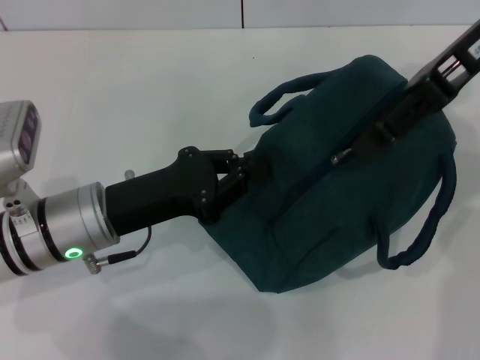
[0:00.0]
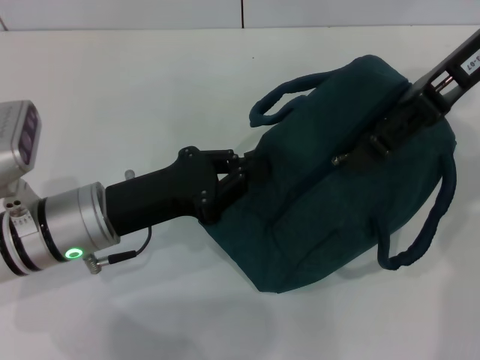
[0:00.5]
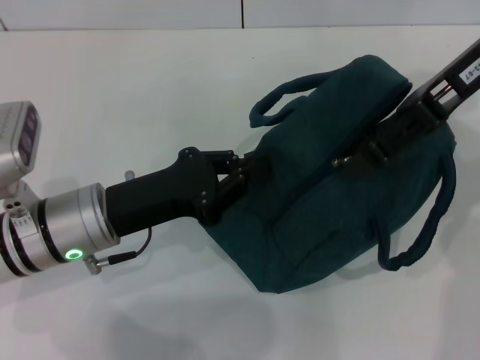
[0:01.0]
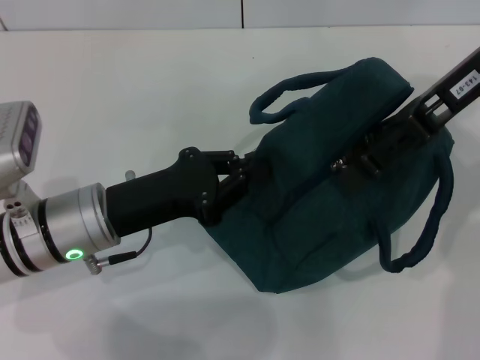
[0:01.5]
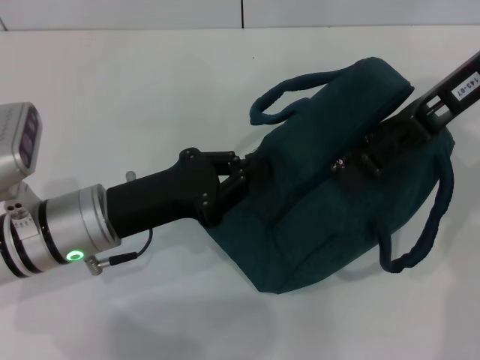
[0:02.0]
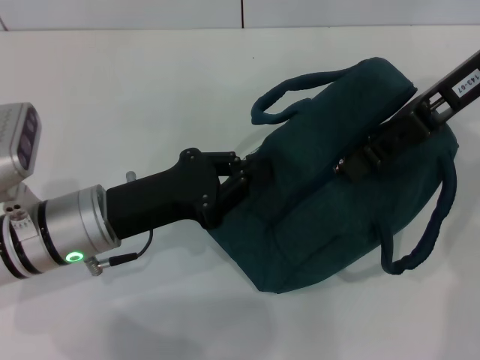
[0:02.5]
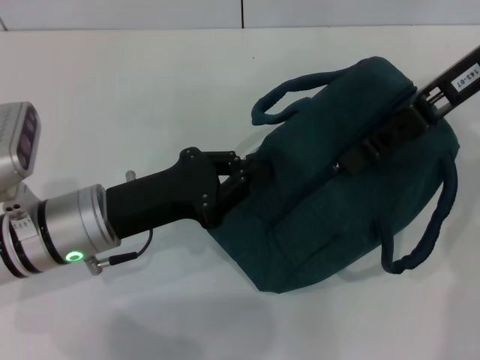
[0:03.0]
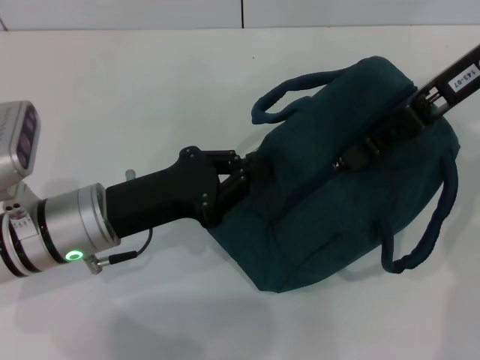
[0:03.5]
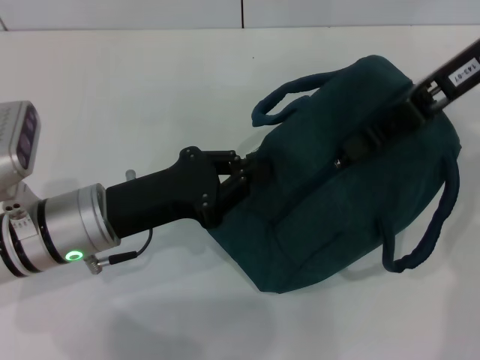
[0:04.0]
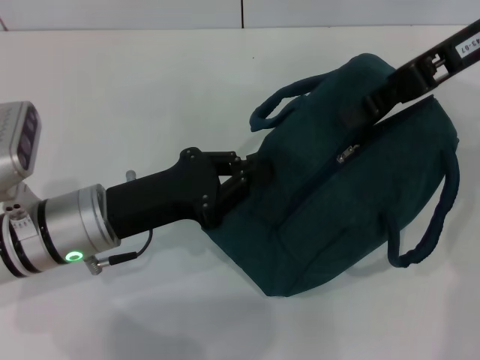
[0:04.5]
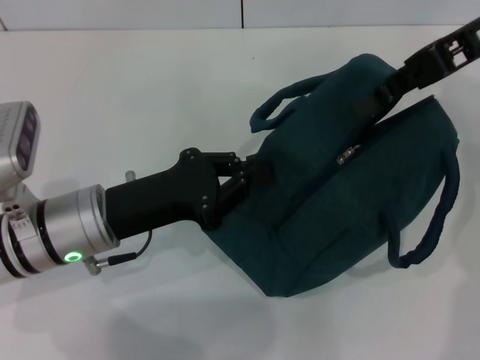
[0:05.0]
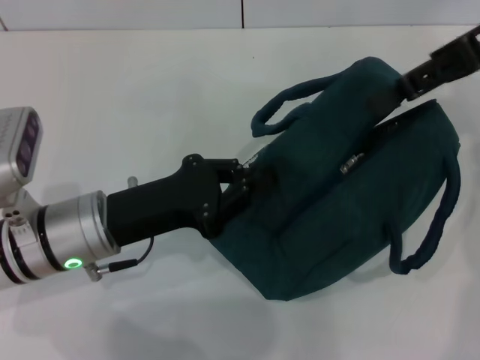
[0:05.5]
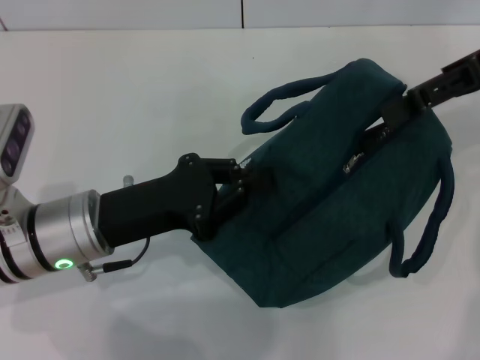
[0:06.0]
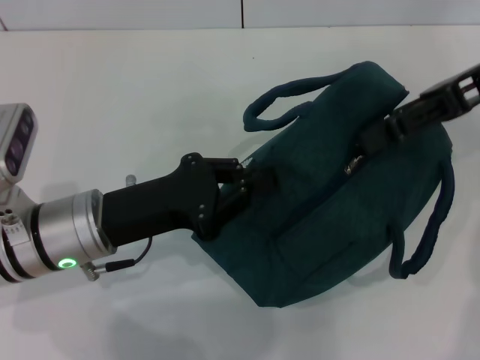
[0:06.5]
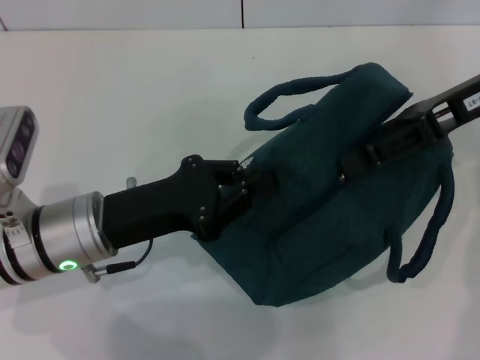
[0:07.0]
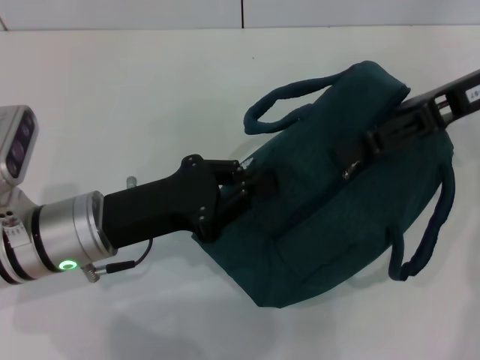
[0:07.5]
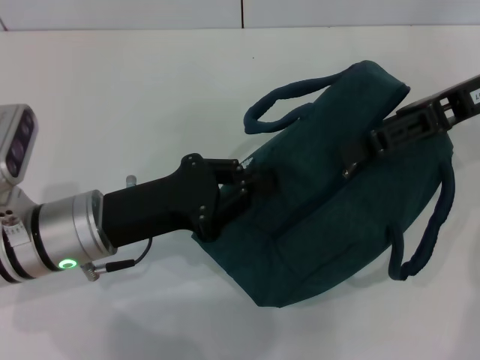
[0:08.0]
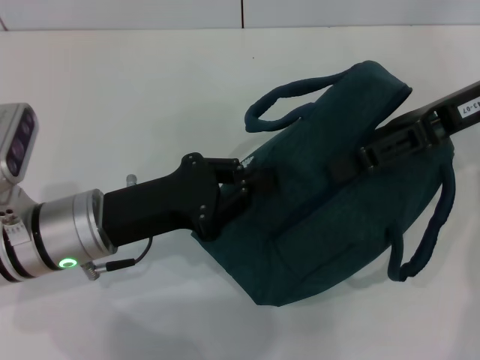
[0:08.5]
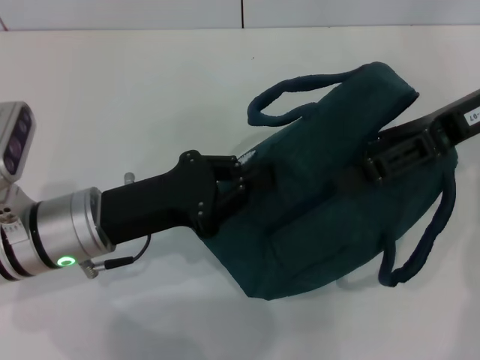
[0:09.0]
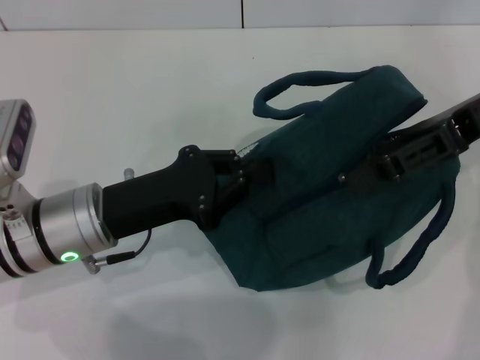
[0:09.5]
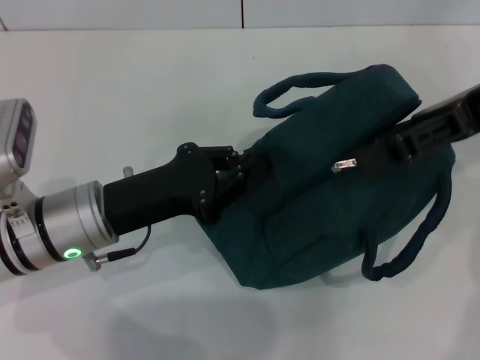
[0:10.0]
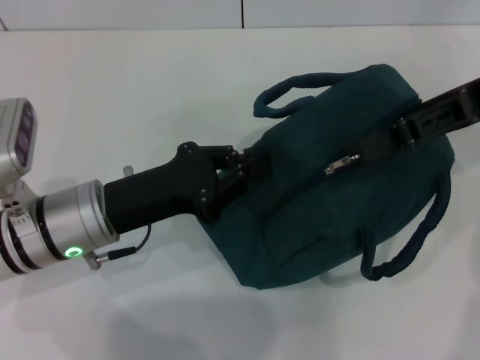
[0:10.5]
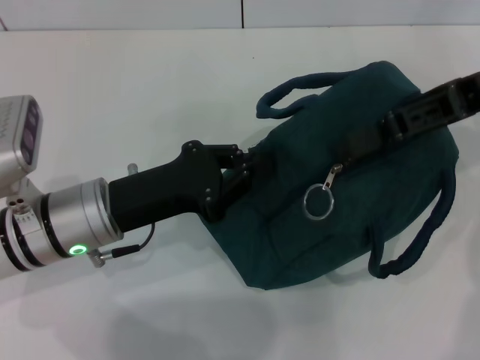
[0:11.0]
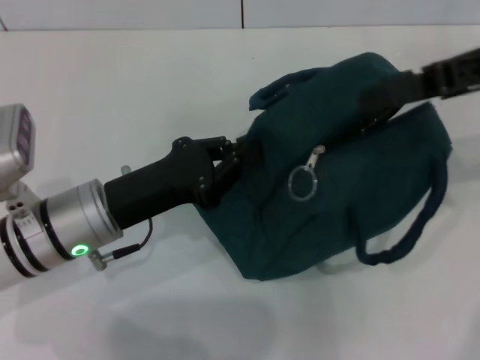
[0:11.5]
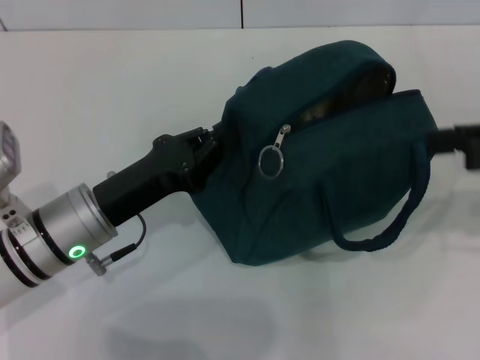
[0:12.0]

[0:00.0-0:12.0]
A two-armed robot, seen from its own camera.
0:00.0 to 0:02.0: The grippers stay close to where they were, moving slightly.
0:02.0 to 0:04.0: The right gripper closes up.
0:04.0 to 0:06.0: The right gripper moves to the right, some 5 cm, and opens.
0:06.0 to 0:08.0: The right gripper shifts by some 5 cm.
0:08.0 to 0:10.0: The grippers make only small movements.
0:10.0 to 0:12.0: The right gripper shifts about 10 cm to the right and backward.

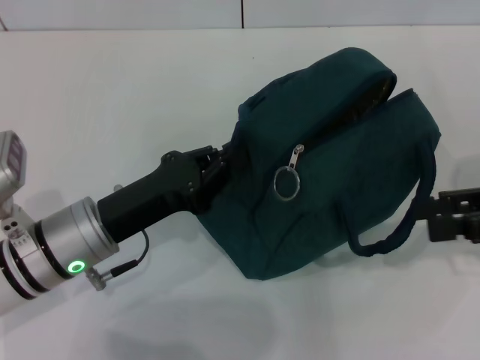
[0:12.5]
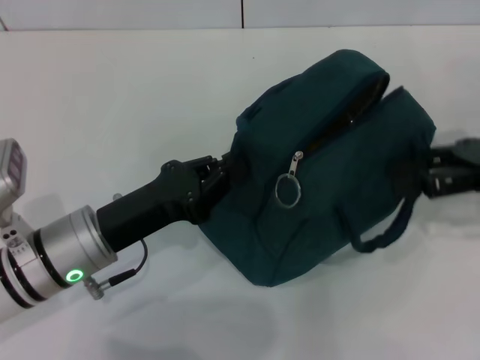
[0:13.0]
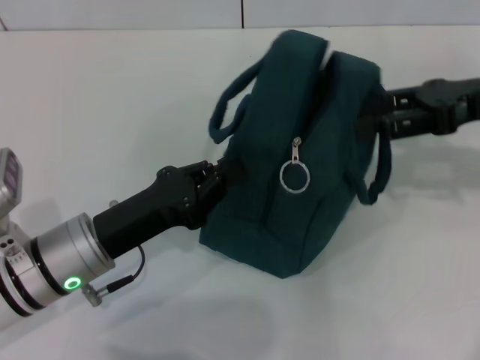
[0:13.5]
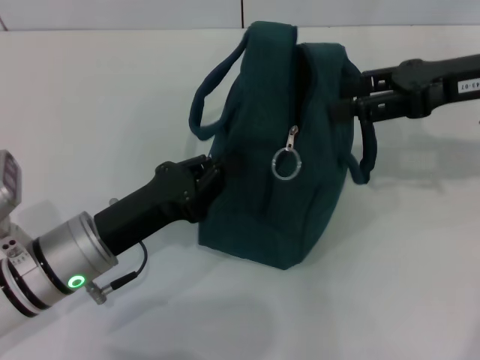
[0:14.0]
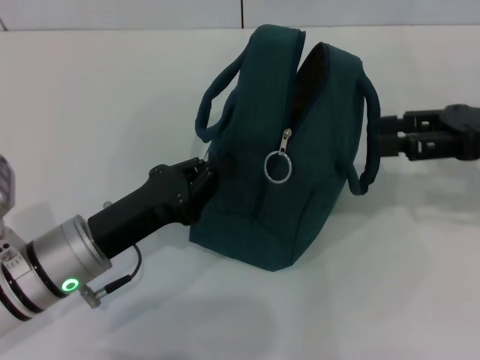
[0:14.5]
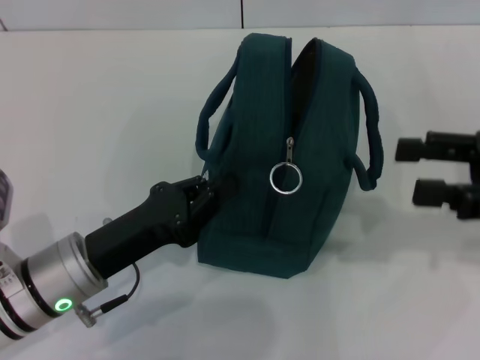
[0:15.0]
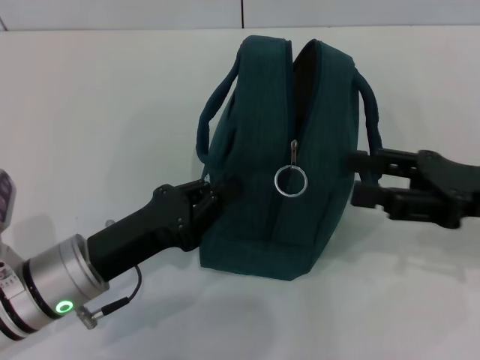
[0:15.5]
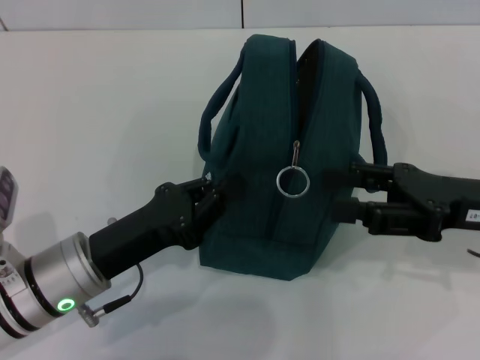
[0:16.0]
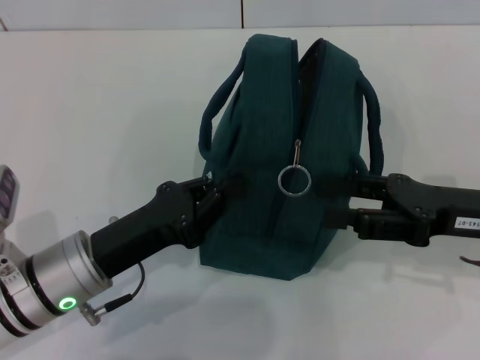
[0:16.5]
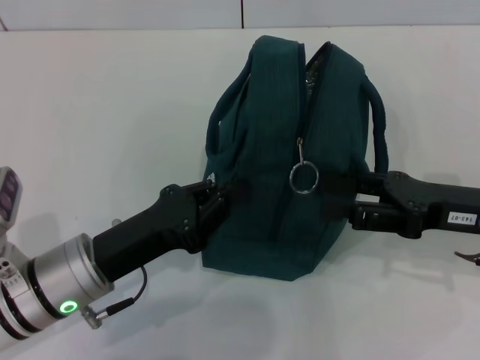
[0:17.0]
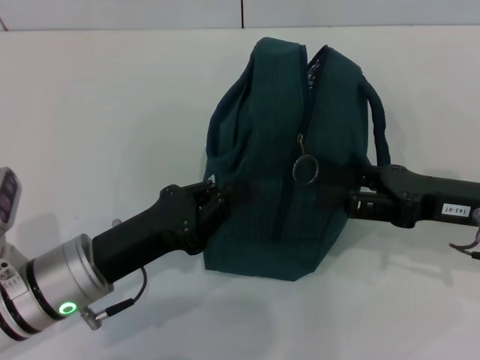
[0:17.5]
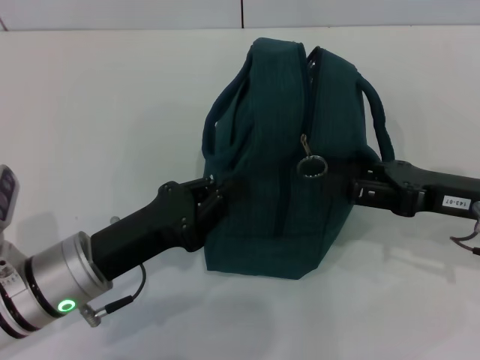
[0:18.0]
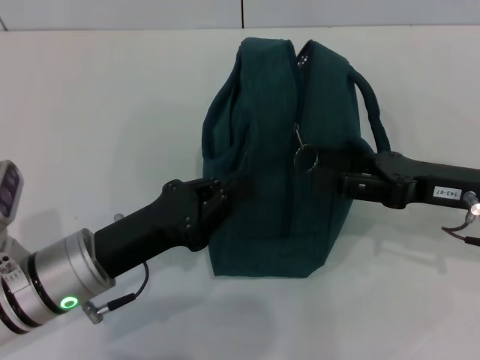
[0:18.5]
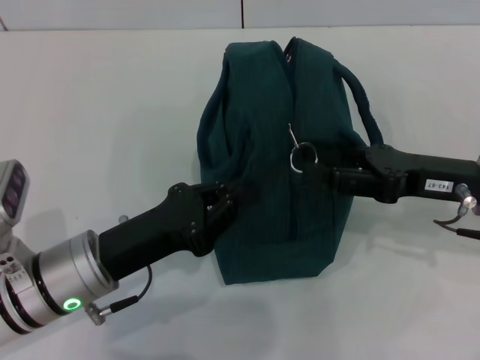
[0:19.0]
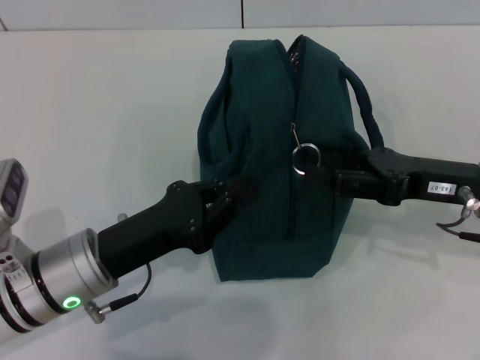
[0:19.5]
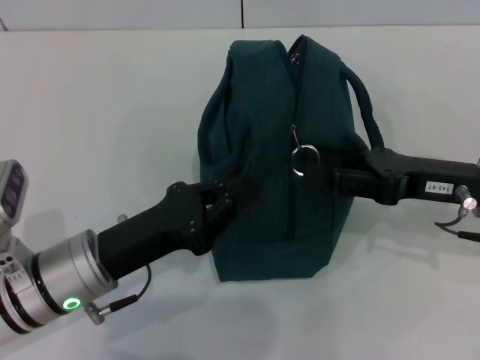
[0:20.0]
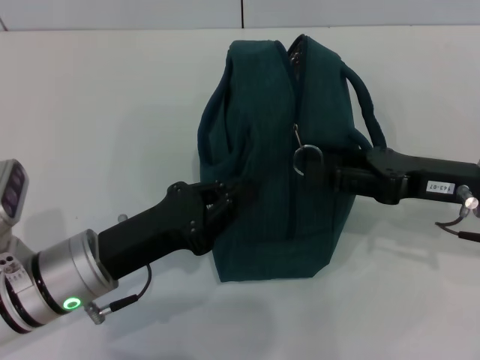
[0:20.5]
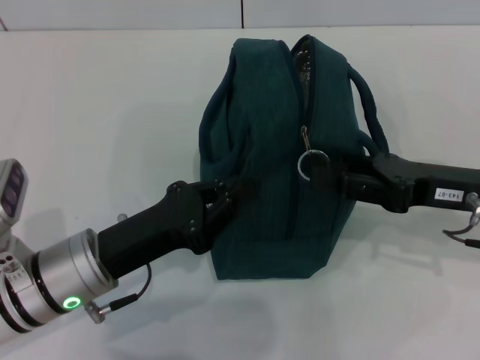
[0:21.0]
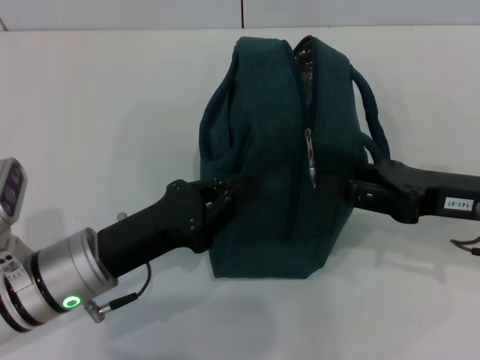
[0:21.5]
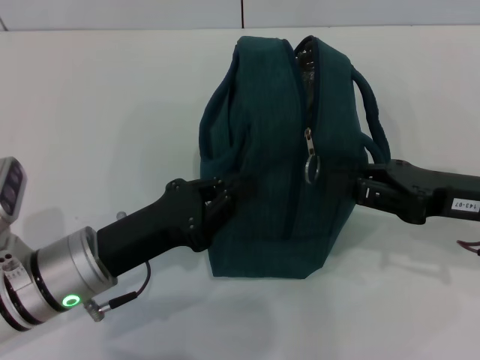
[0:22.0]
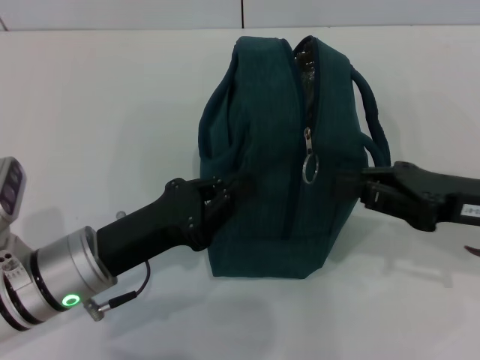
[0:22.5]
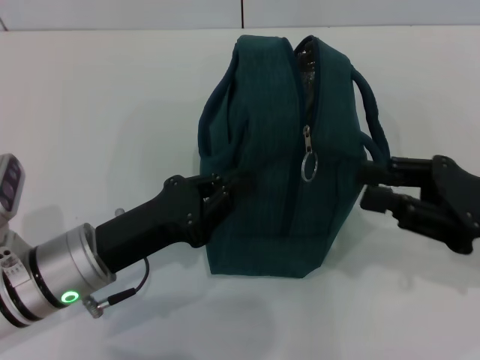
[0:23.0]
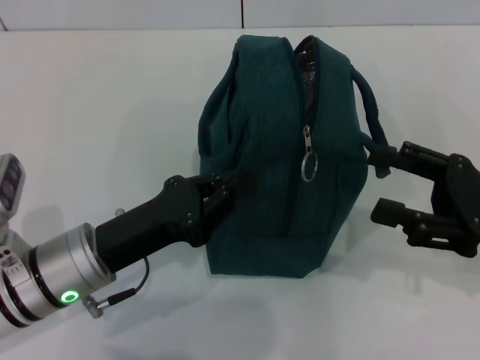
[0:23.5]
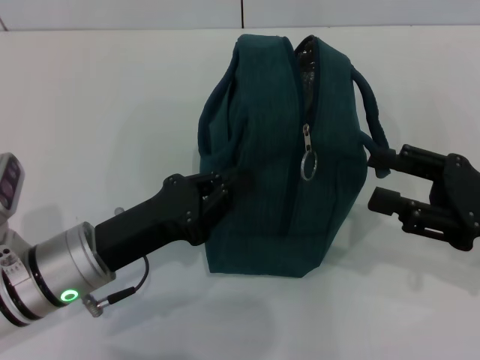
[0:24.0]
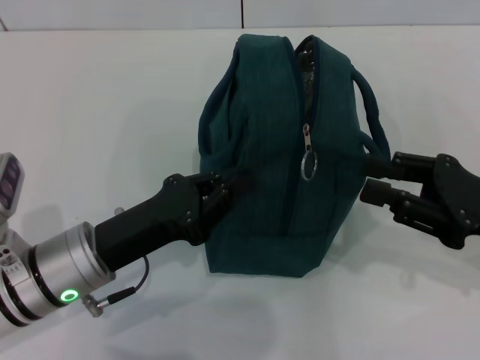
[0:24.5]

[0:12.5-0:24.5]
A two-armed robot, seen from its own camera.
0:14.5 to 0:16.5: The right gripper is displaced downward and backward by roughly 10 cm.
0:16.5 to 0:18.5: The grippers make only small movements.
0:18.5 to 0:20.5: Both grippers stay about where they are.
0:20.5 to 0:22.5: The right gripper closes its fingers.
0:22.5 to 0:24.5: The right gripper opens, then closes once more.

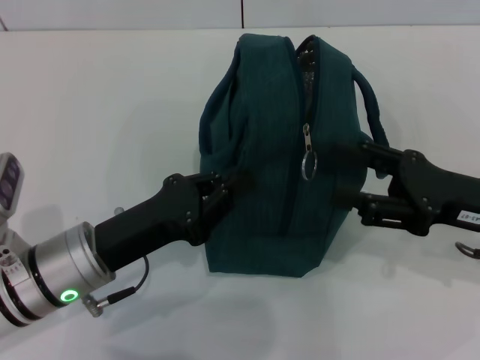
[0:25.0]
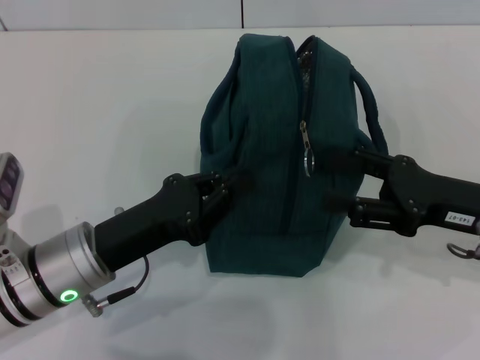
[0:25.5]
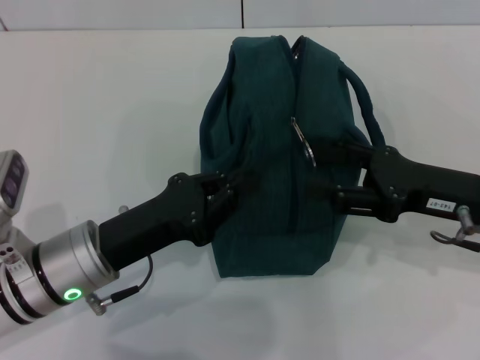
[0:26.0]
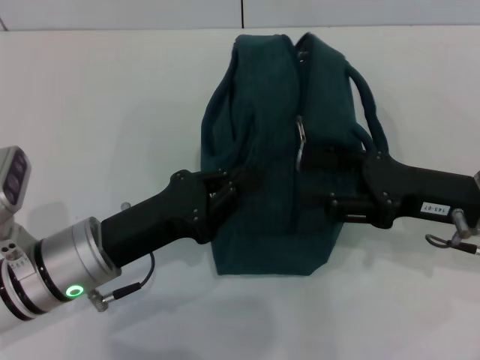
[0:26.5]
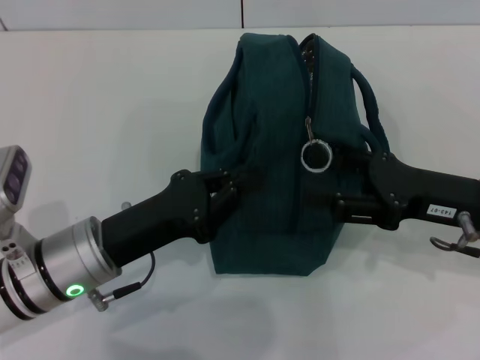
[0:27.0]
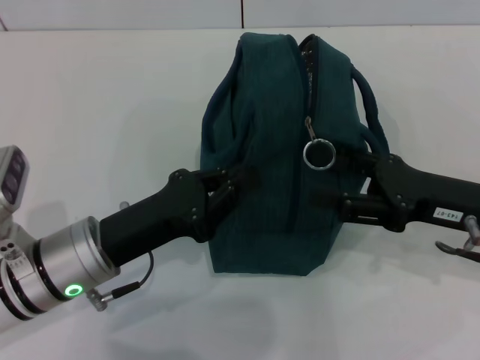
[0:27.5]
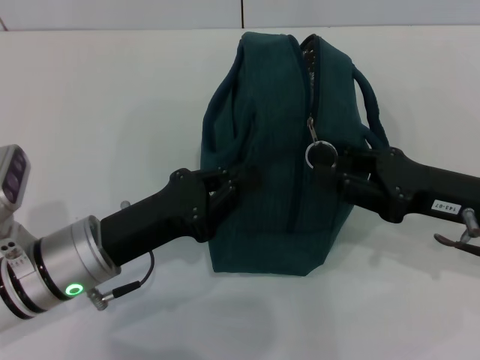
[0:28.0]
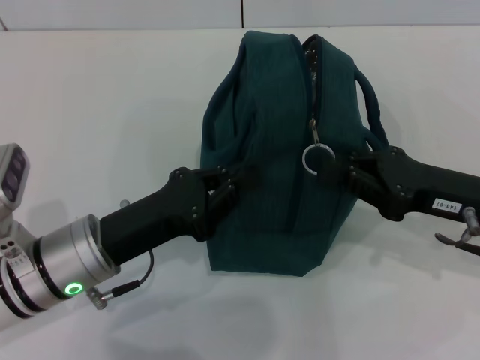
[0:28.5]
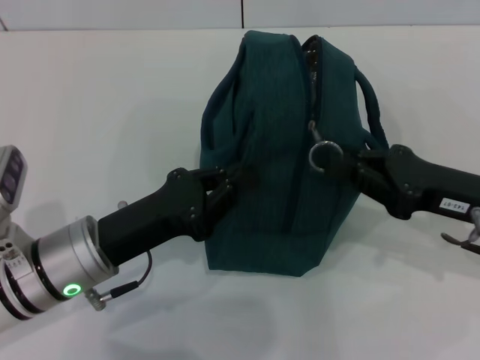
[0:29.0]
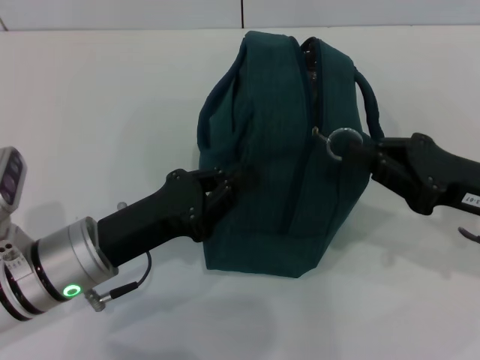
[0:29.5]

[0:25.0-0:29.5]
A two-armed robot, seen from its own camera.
0:25.0 to 0:27.0: The grippers make only small movements.
0:27.0 to 0:29.5: The right gripper closes.
